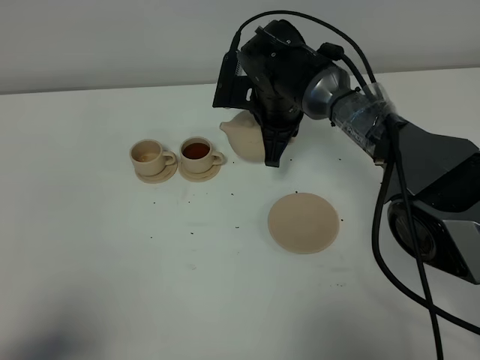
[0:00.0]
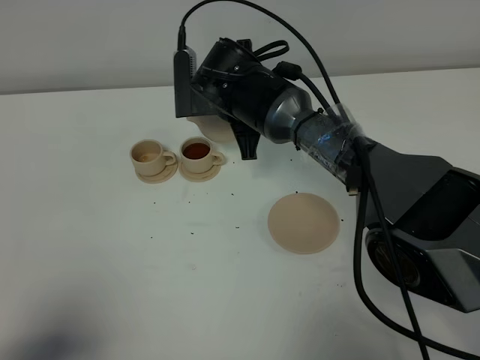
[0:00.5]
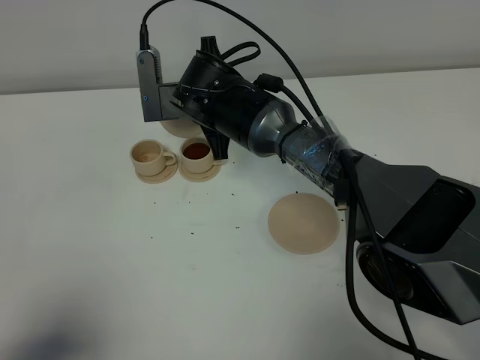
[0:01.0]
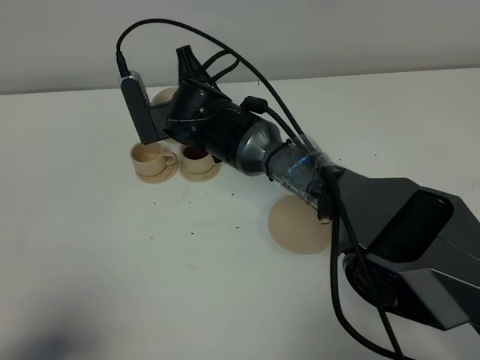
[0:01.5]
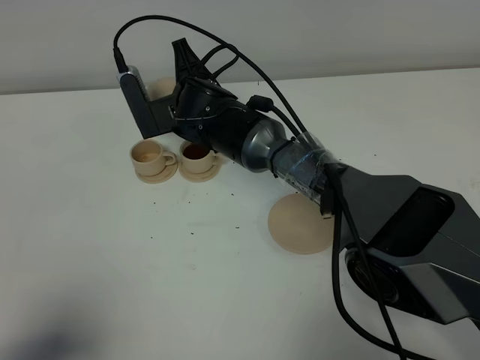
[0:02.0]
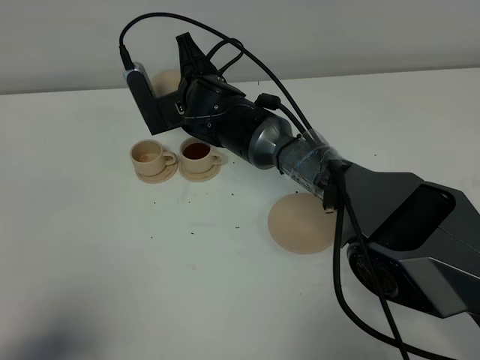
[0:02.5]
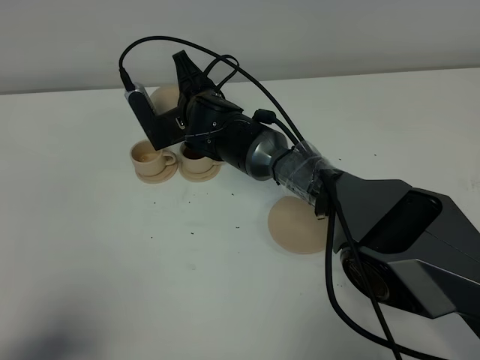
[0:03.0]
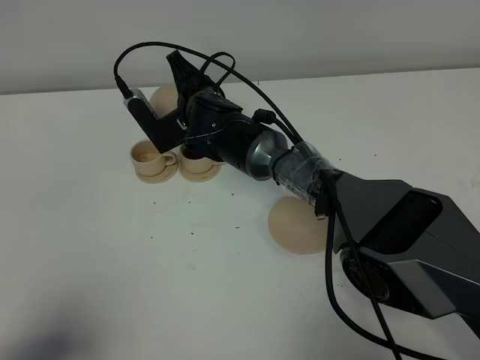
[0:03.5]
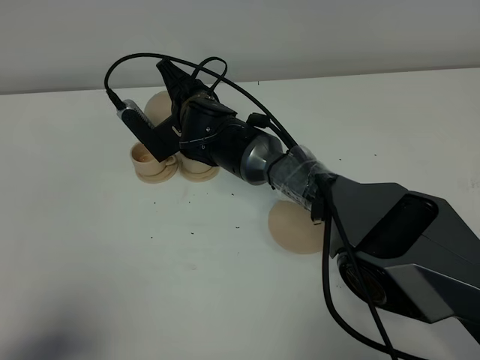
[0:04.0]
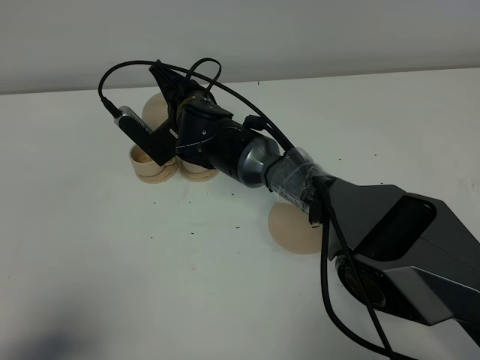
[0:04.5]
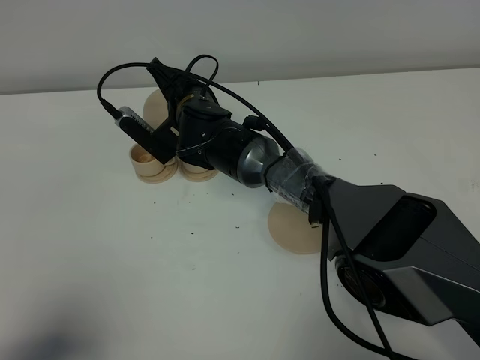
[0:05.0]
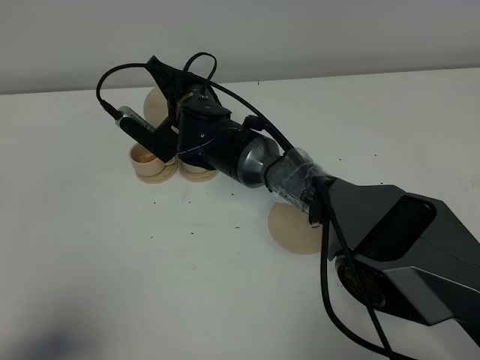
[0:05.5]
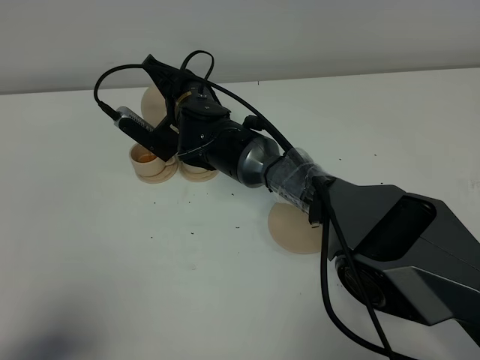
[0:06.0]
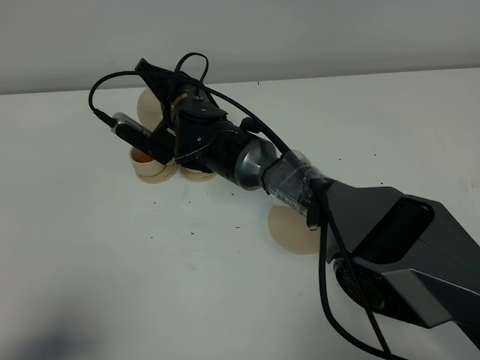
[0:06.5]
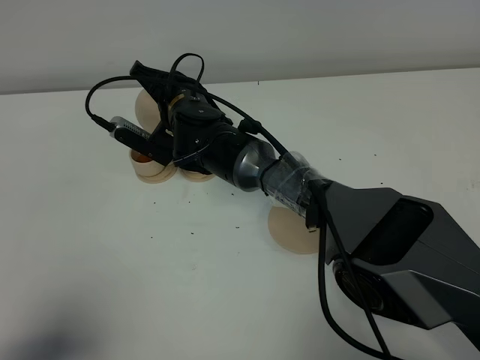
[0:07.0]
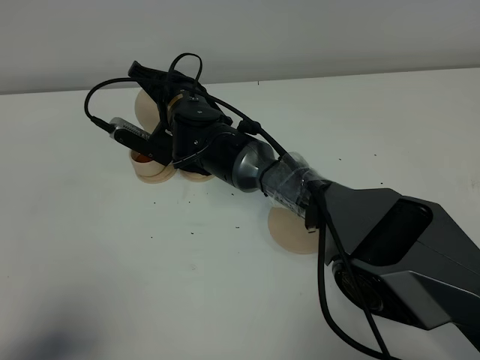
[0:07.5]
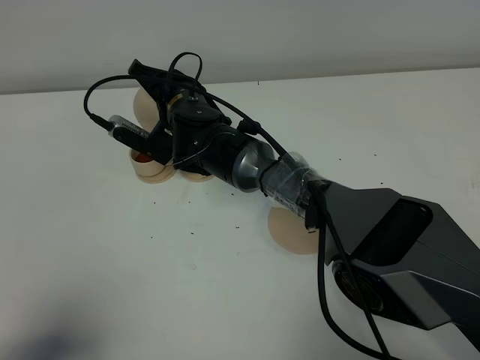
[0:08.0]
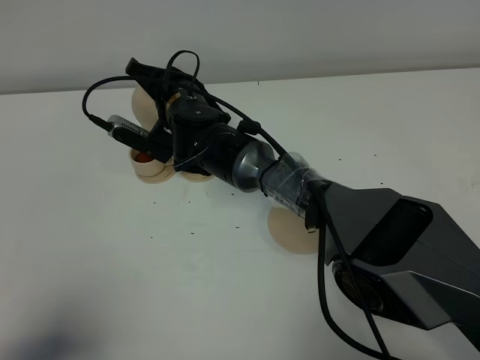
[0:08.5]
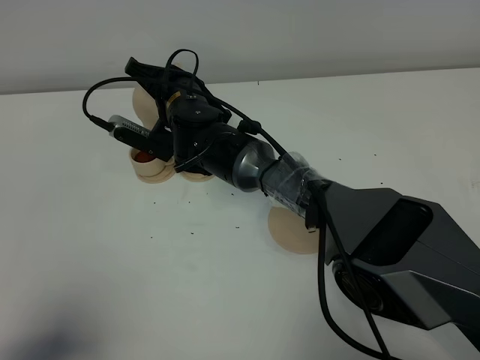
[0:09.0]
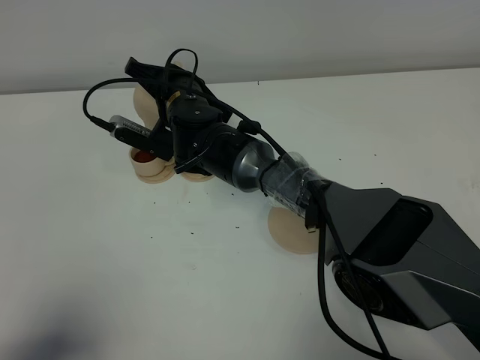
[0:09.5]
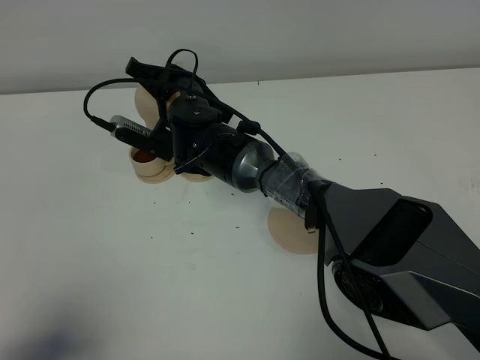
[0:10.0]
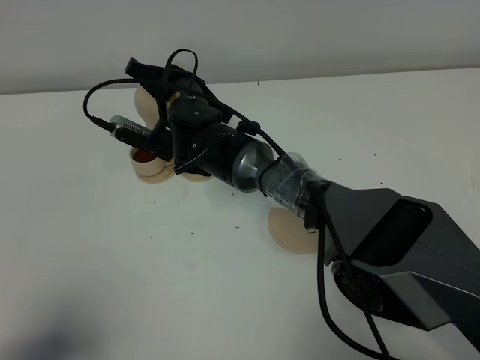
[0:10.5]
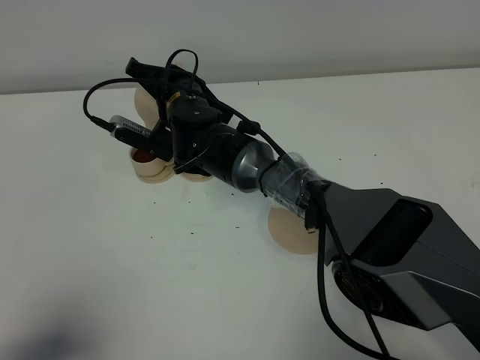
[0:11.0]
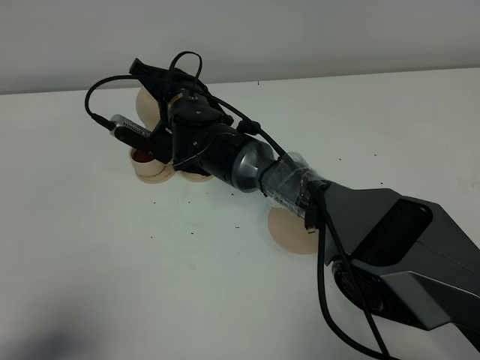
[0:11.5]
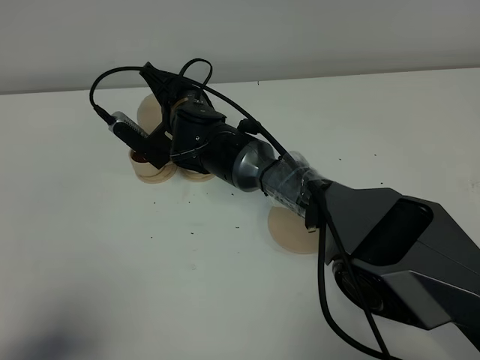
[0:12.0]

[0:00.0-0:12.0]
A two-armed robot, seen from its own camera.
Task of the whole recording: grasp the brown teapot and pour the tea into the two brown teacups one by one, put the brown teapot back in its original place.
0:00.0 to 0:02.0: The right gripper is displaced to the left by about 10 cm.
0:02.0 to 0:04.0: The grippers stay close to where they were, moving slightly.
0:04.0 to 0:06.0: There are only small adjustments of the grippers.
0:06.0 to 0:12.0: The grippers move only a little.

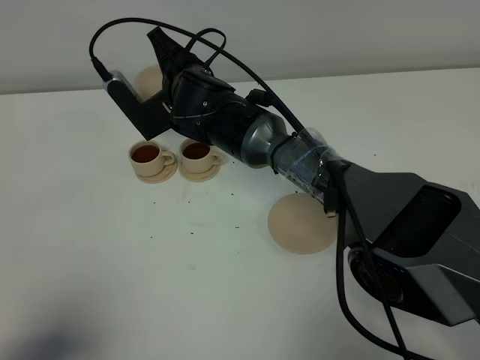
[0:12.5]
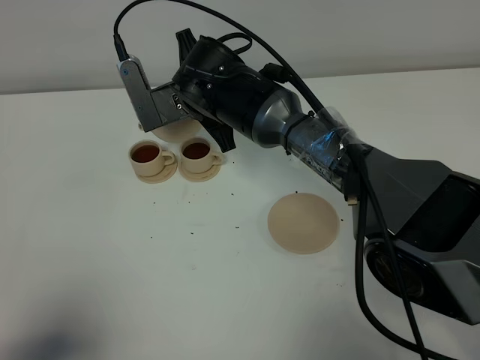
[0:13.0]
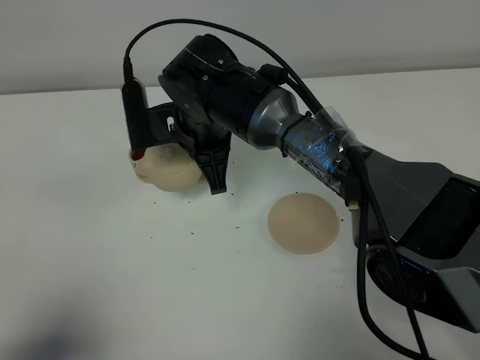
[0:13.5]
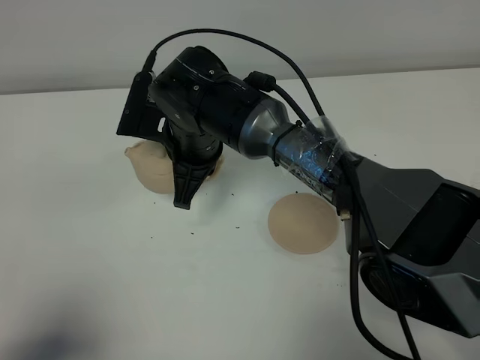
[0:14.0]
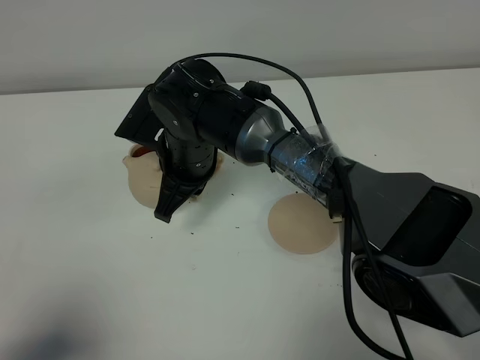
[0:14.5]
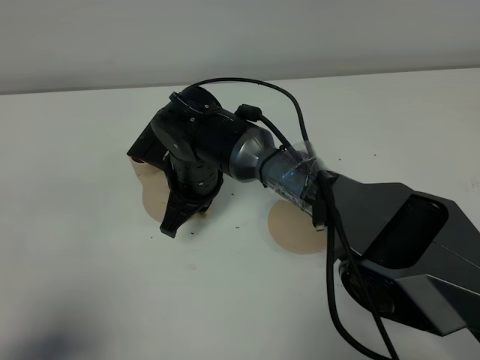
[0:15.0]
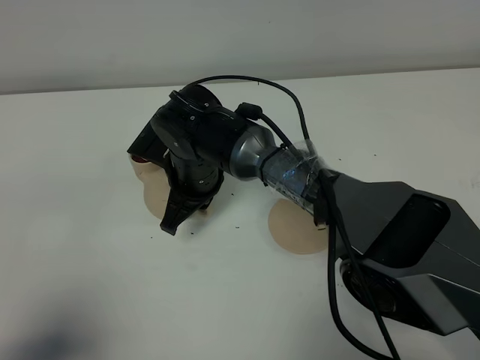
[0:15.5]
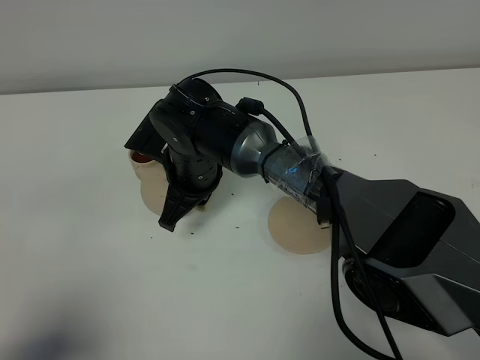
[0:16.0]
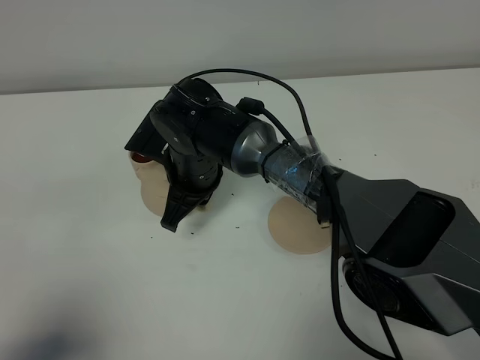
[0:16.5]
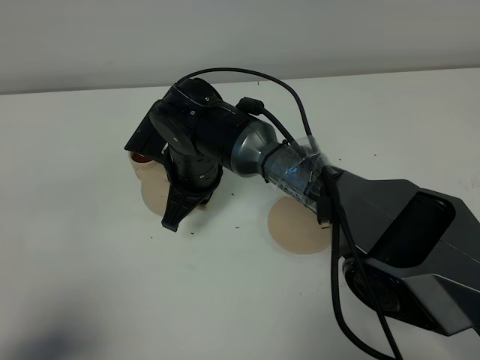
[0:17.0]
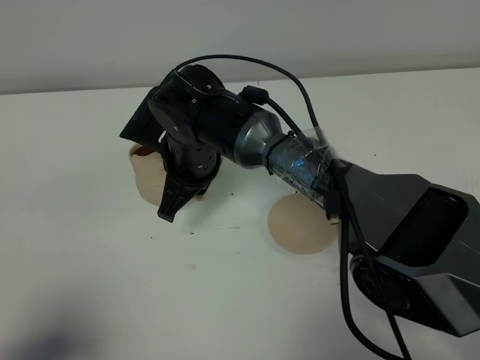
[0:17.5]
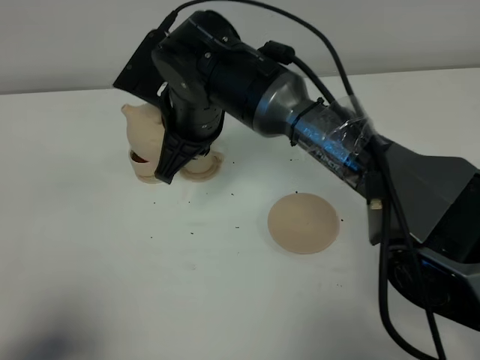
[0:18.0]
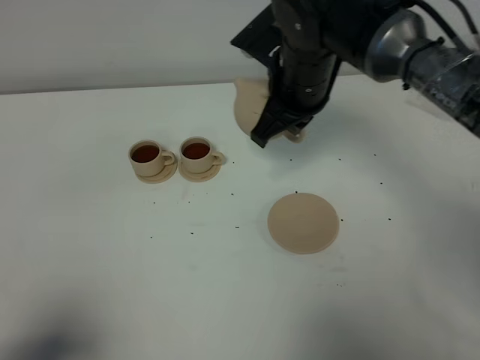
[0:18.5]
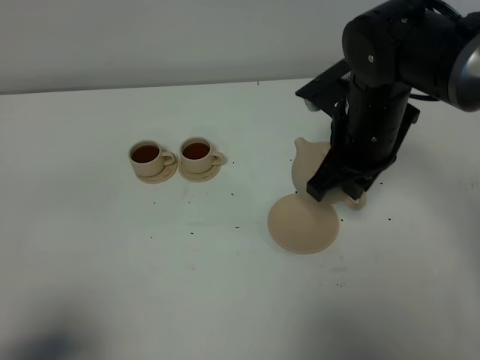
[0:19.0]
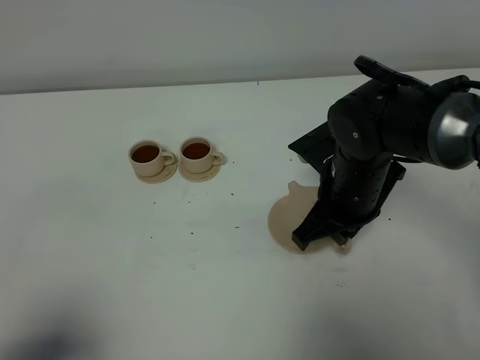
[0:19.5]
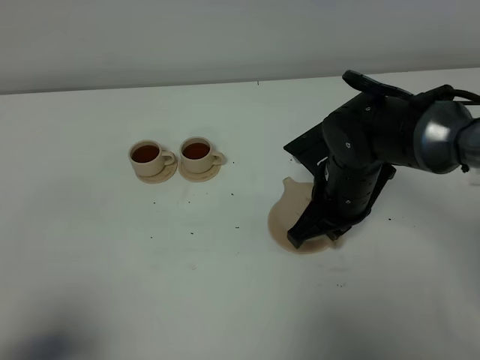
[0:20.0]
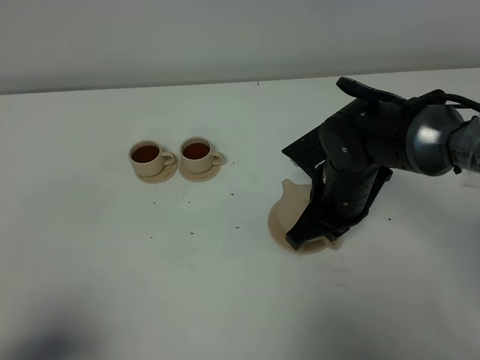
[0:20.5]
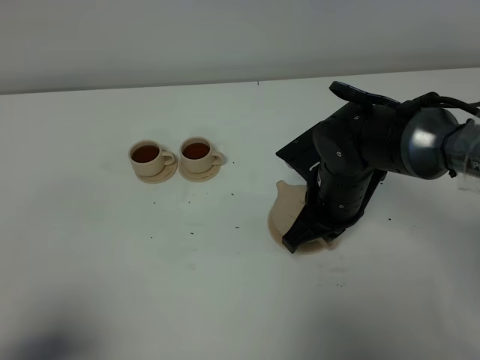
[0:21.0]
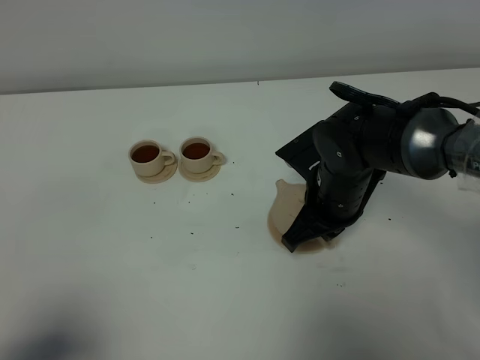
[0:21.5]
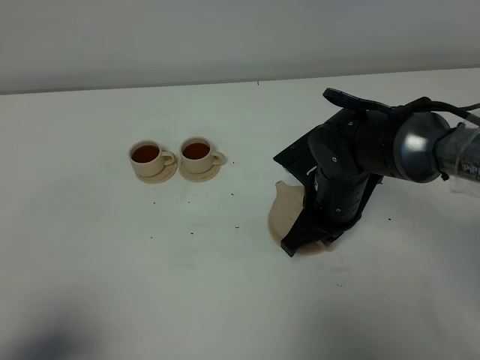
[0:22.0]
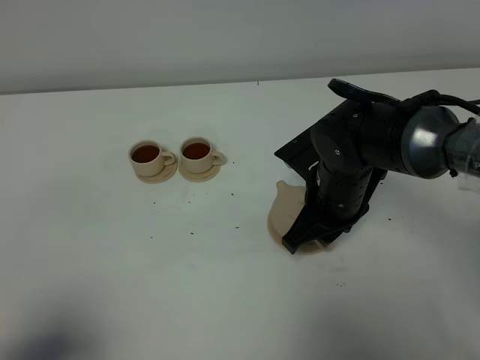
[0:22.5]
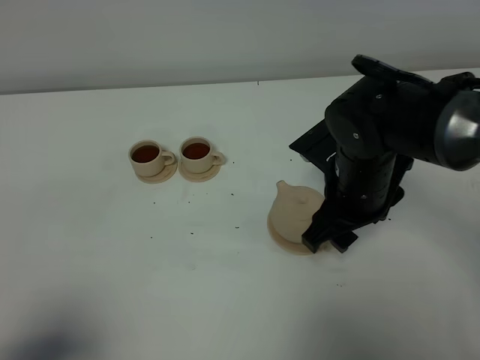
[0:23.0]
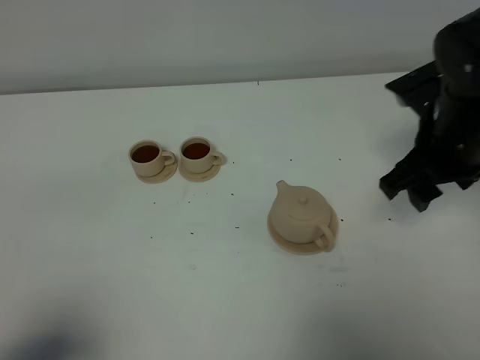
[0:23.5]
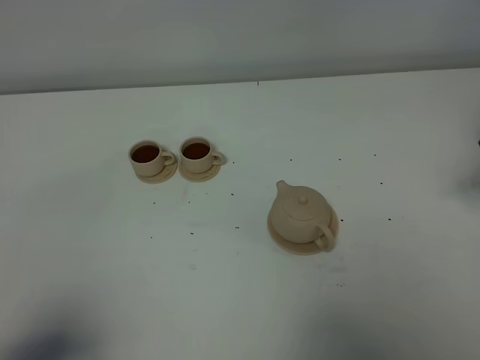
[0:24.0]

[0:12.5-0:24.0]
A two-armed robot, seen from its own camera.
Task of the whole recording: grasp the brown teapot and pour the tea into the two brown teacups one by one, put the brown teapot back in its original place.
0:12.5 to 0:14.5: The right gripper shifts roughly 5 cm backward.
0:14.5 to 0:16.5: The grippers move only a little.
0:16.5 to 0:18.5: The right gripper heads to the right and upward, covering some 20 cm.
0:18.5 to 0:20.0: The right gripper goes about 10 cm downward and backward.
0:20.0 to 0:22.0: The grippers move only a little.
0:22.0 to 0:24.0: The right gripper travels to the right and upward by approximately 25 cm, and opens up.
